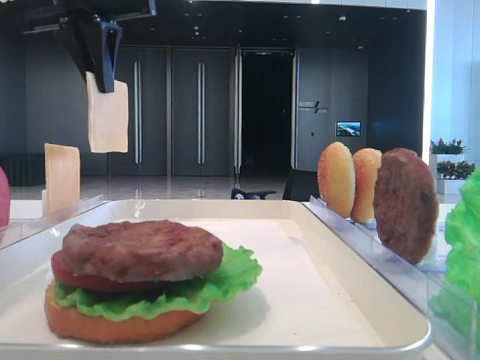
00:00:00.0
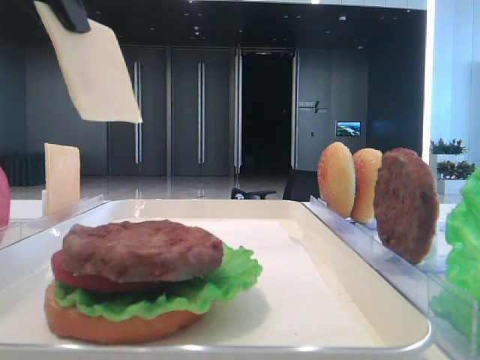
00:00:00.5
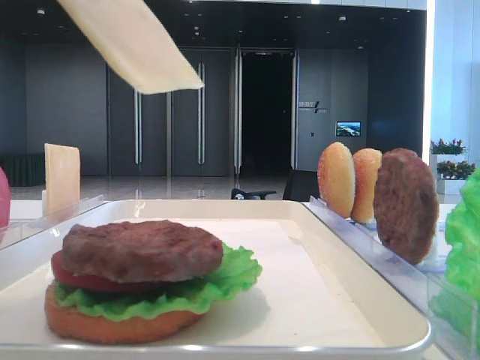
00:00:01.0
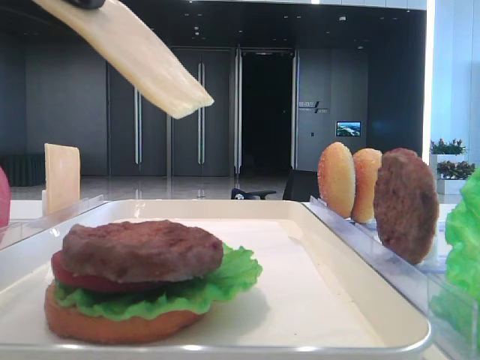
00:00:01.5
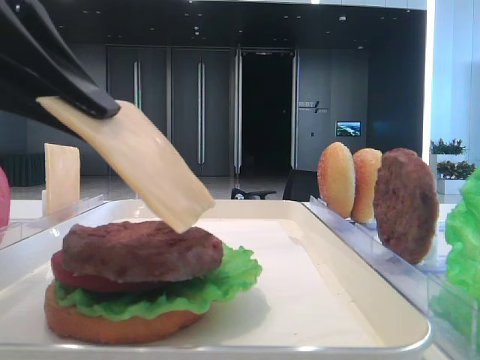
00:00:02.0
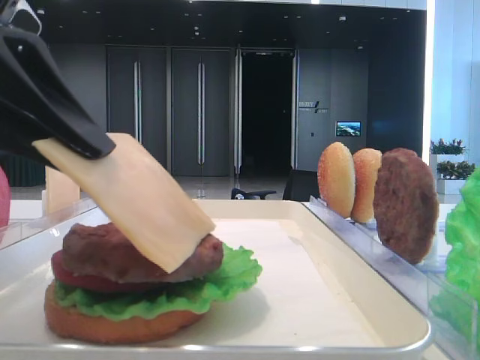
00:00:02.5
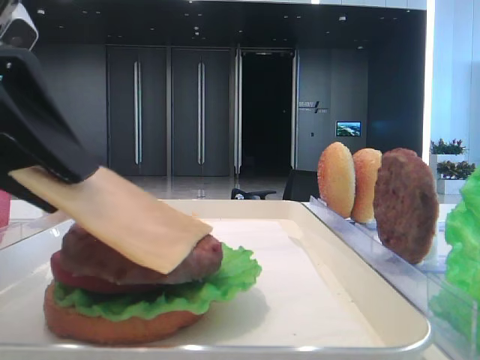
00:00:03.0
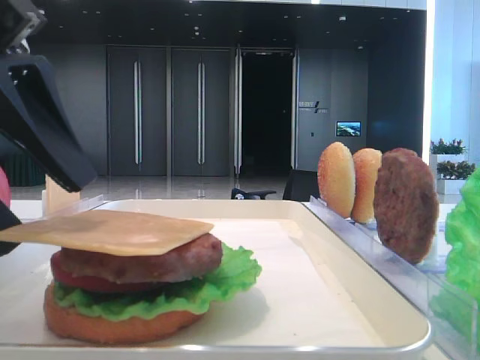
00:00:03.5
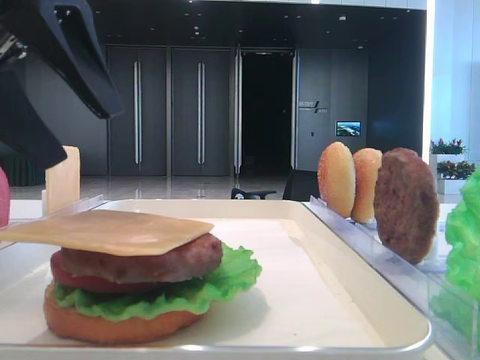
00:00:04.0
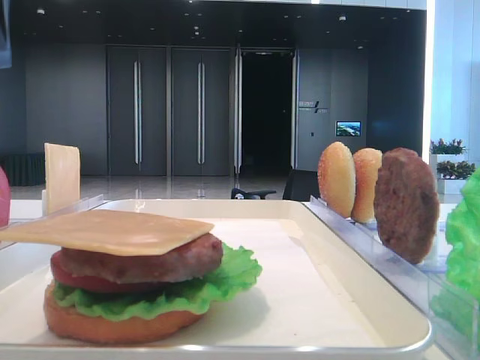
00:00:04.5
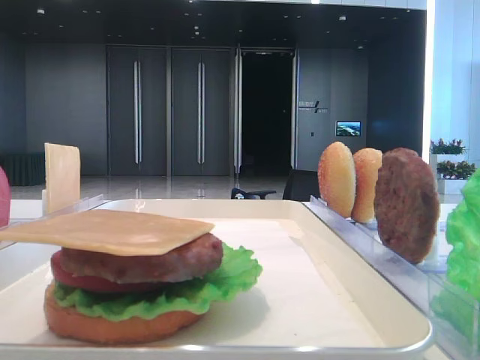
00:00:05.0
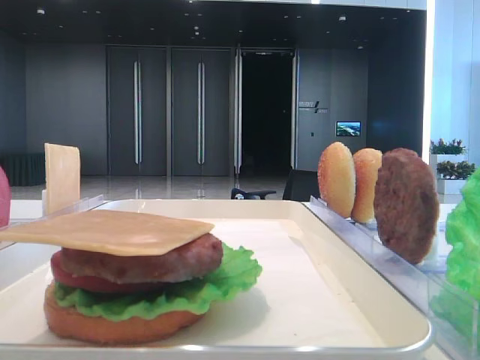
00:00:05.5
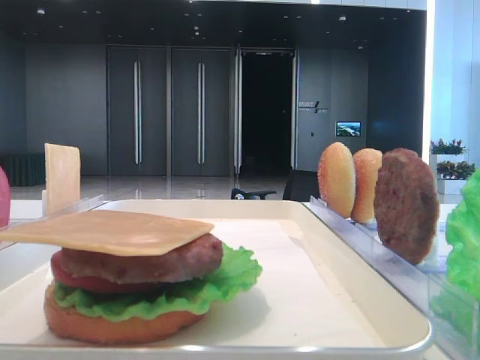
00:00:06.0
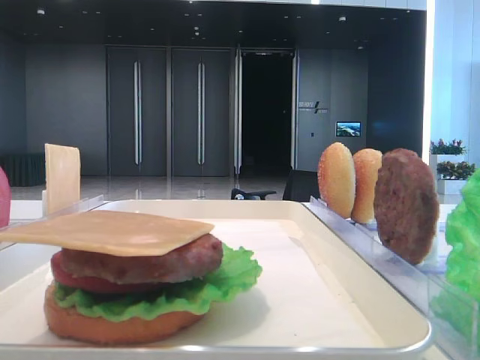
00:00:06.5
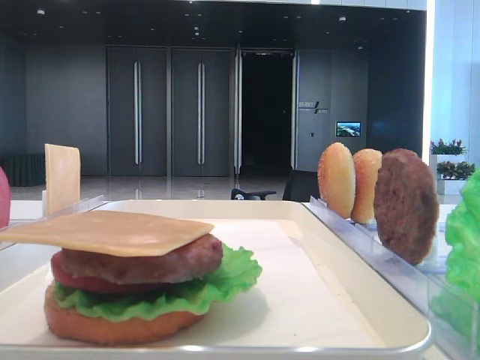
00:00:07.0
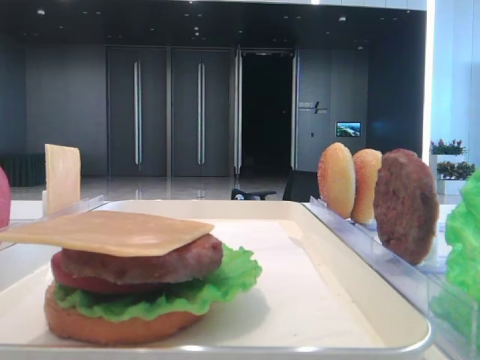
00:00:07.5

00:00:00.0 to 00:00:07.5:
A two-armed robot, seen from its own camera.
Step, 00:00:00.0 to 00:00:03.0: Place the cheese slice on the patty with the left hand.
00:00:00.0 to 00:00:02.0: The left gripper is displaced backward and downward by some 25 cm.
00:00:02.0 to 00:00:04.0: The left gripper heads forward, covering some 5 cm, and opens its fingers.
00:00:04.0 to 00:00:05.5: The left gripper shifts about 20 cm to the left and upward.
